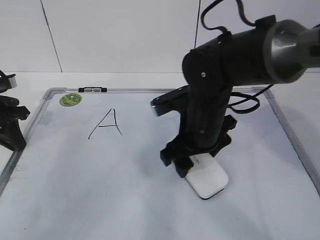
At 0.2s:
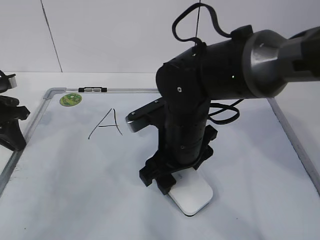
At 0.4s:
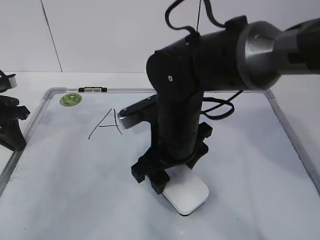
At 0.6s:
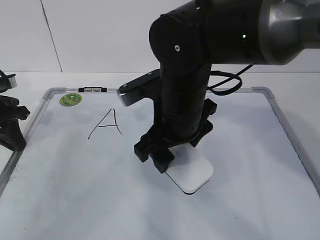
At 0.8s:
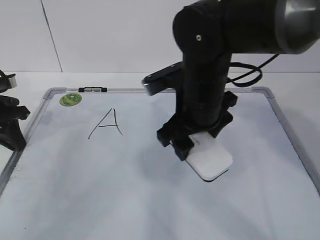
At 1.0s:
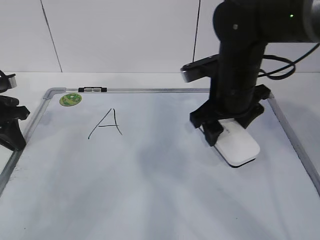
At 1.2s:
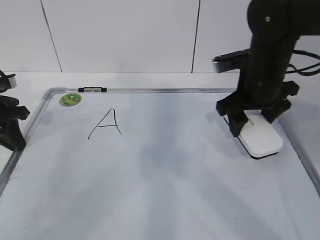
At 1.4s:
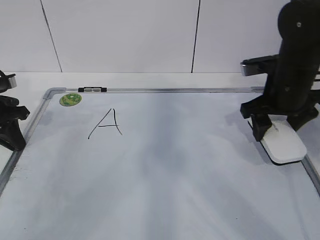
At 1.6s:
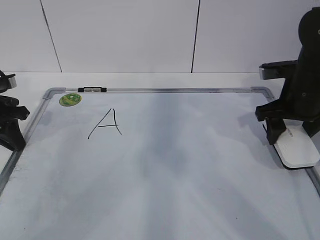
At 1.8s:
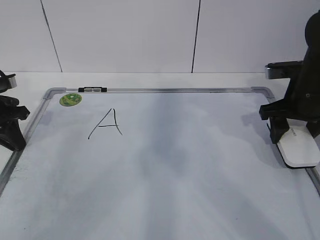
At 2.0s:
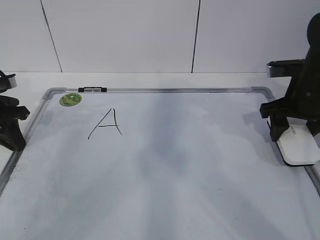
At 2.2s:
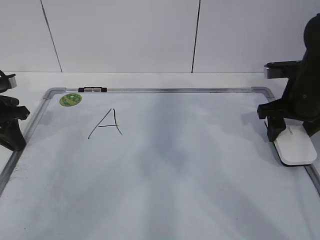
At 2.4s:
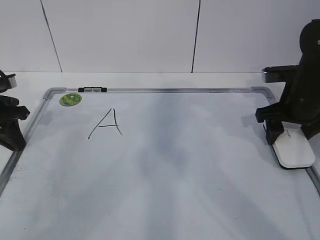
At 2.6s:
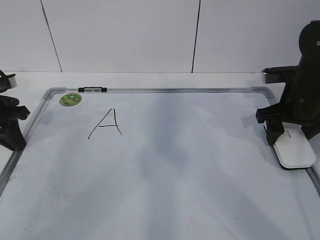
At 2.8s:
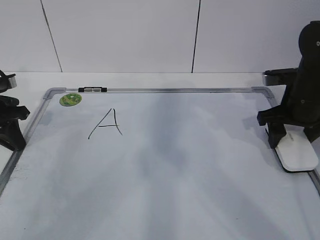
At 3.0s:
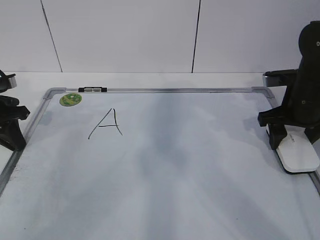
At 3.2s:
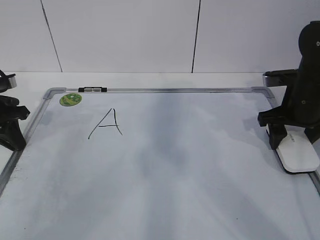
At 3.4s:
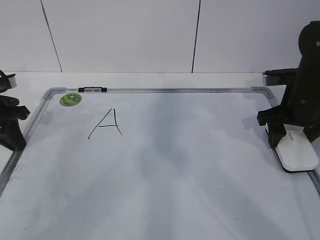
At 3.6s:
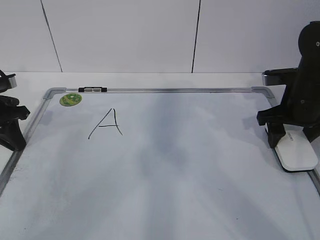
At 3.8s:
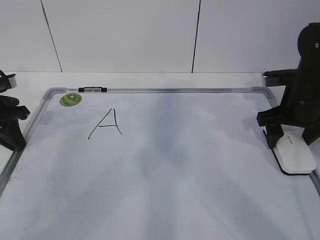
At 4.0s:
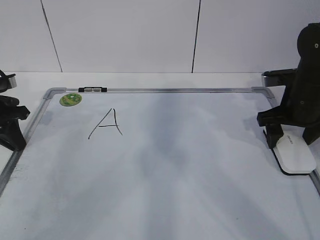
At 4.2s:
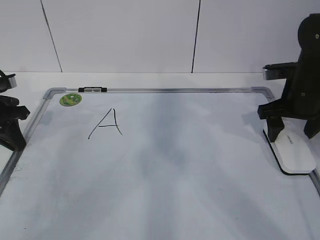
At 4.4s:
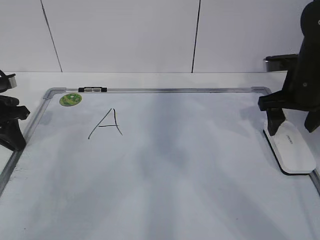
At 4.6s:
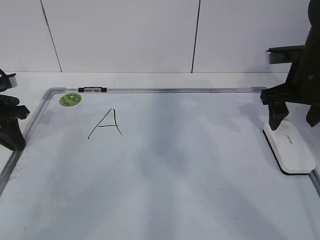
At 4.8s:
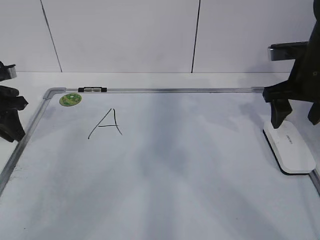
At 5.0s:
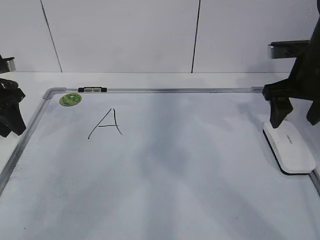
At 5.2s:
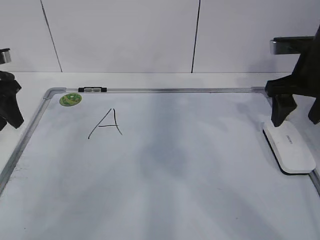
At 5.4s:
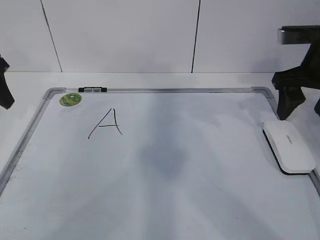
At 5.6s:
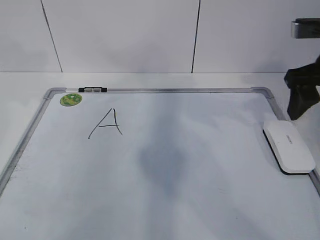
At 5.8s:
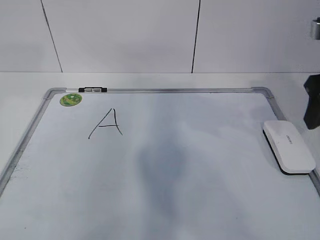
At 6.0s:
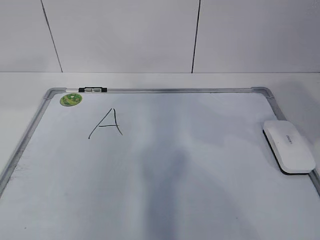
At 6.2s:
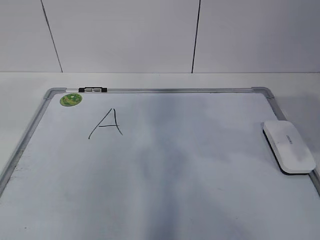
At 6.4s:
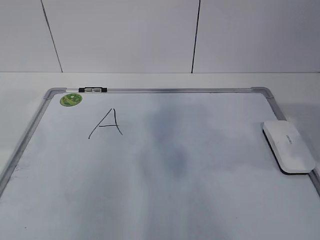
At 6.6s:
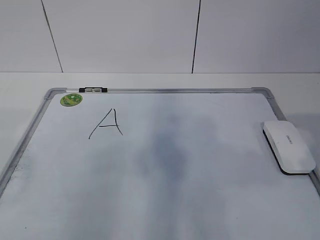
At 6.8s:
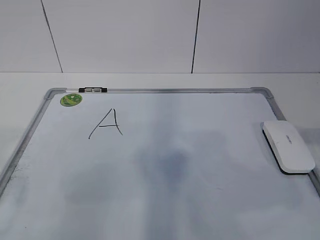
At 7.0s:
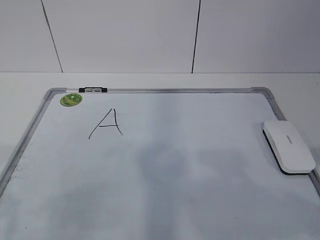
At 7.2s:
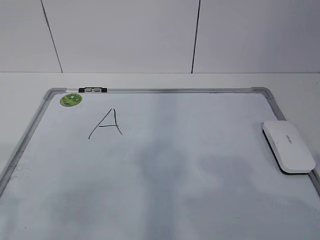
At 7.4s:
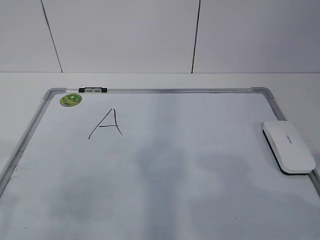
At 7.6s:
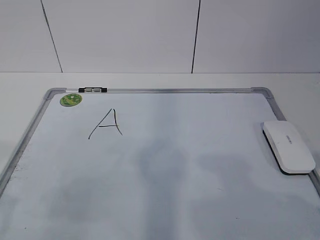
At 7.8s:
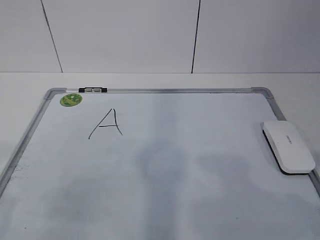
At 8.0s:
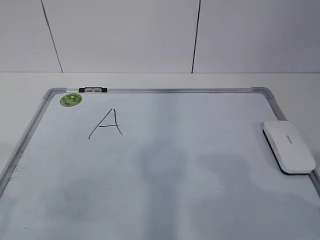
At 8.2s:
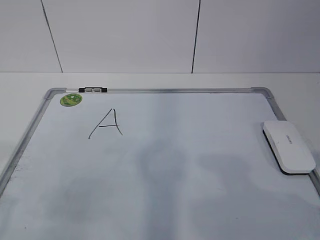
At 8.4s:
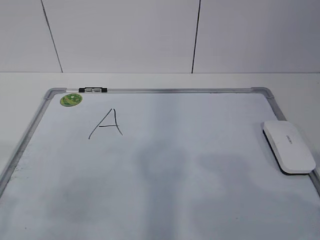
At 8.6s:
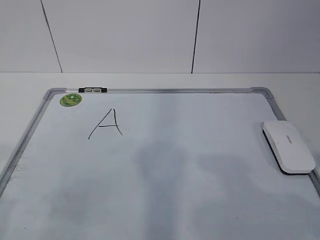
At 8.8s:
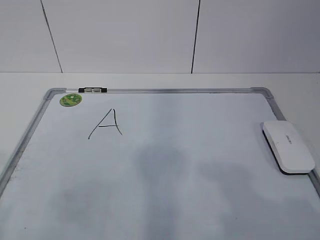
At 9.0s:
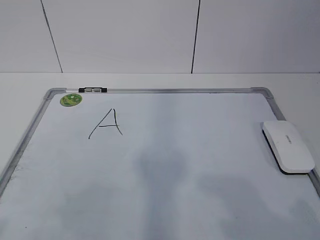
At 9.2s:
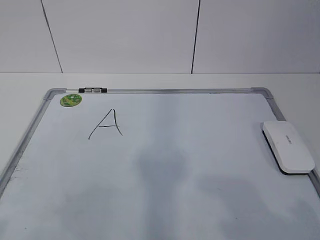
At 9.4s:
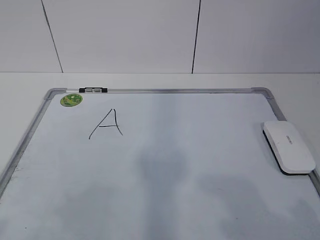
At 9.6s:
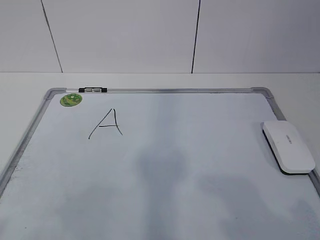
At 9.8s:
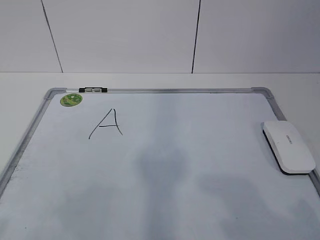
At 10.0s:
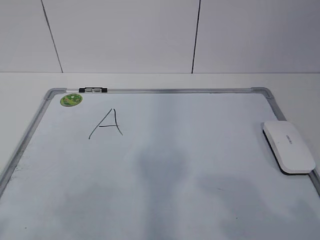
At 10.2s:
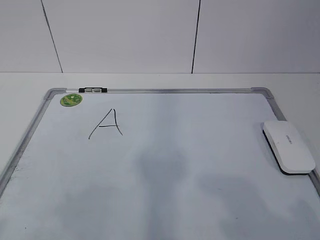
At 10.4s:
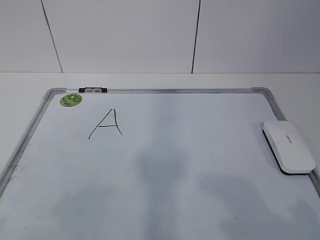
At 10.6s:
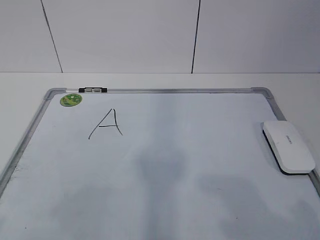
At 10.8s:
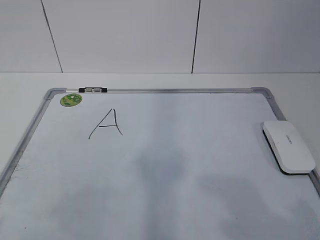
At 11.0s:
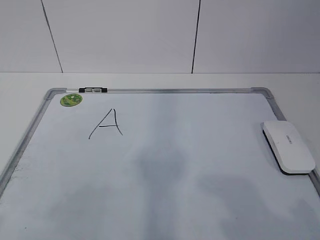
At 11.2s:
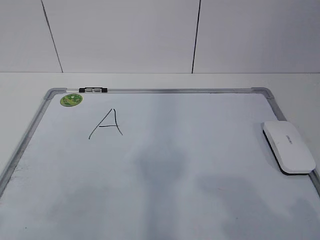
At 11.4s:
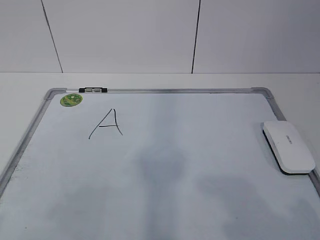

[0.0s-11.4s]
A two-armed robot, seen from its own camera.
Task of the whole recording: pick up the eraser on the blackboard and erase the letter "a".
0.0s to 1.4s: The right gripper moves to the right, about 15 cm.
1.4s to 2.8s: The right gripper moves some 5 cm.
2.8s to 4.2s: The right gripper opens its fingers.
4.2s to 5.6s: The right gripper shifts some 10 cm upward and backward, and closes. The left gripper shifts about 15 cm upward, and opens its fingers.
5.6s to 7.2s: Both grippers move backward, about 30 cm.
10.0s to 11.4s: The two grippers keep their place.

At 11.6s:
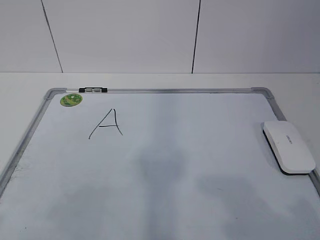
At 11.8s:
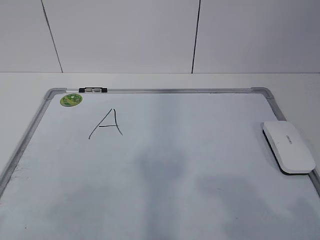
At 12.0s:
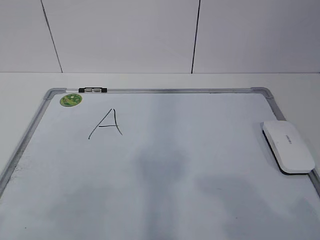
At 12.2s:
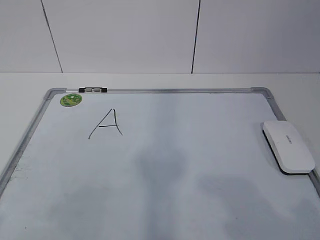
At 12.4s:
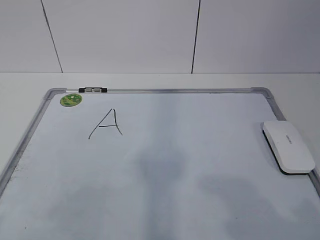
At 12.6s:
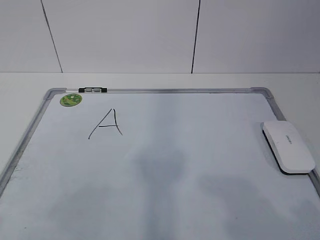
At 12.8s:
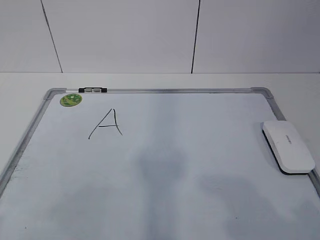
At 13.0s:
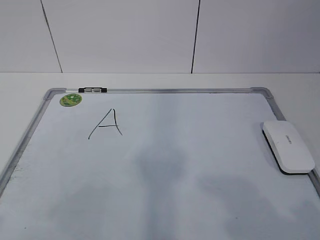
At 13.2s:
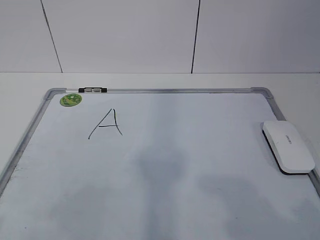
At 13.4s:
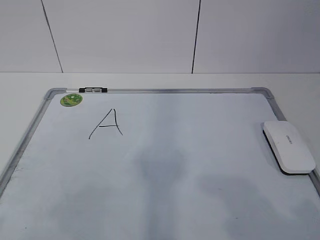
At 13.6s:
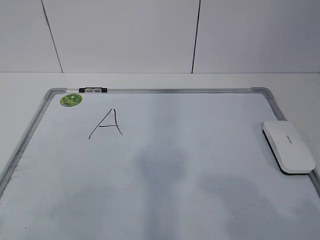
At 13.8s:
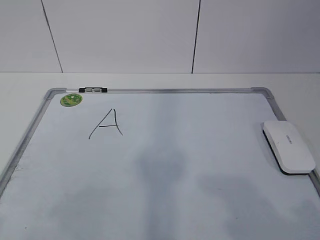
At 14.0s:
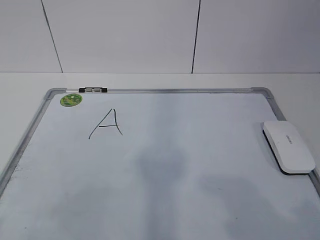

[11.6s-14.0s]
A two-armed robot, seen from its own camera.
Task of the whole recording: pick up the eraser on the blackboard and erase the letter "a".
11.6s to 14.0s: Both grippers stay about where they are.

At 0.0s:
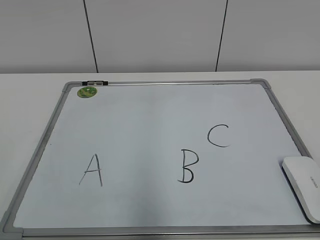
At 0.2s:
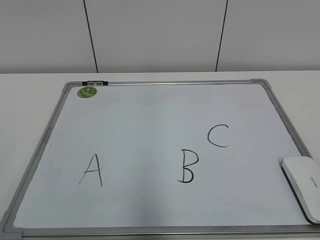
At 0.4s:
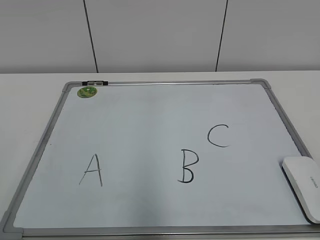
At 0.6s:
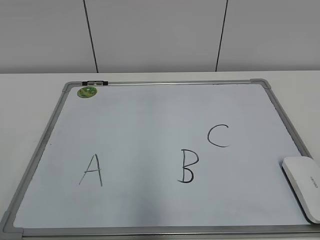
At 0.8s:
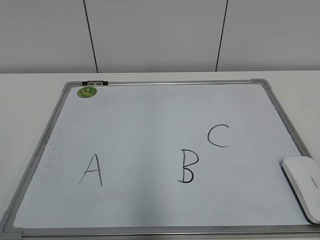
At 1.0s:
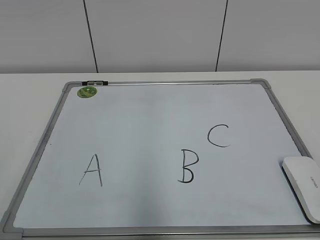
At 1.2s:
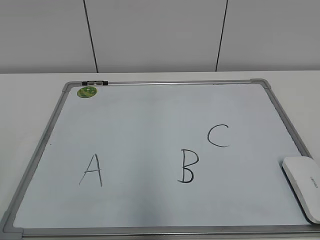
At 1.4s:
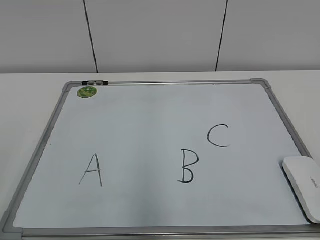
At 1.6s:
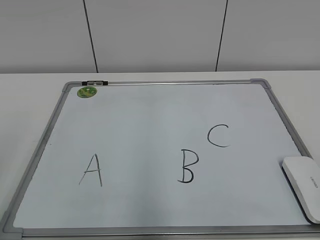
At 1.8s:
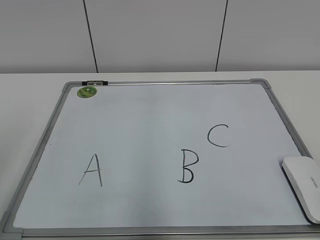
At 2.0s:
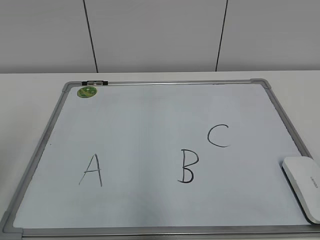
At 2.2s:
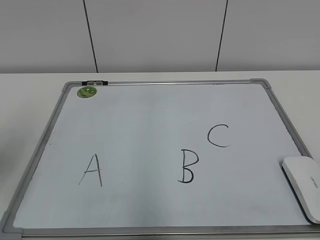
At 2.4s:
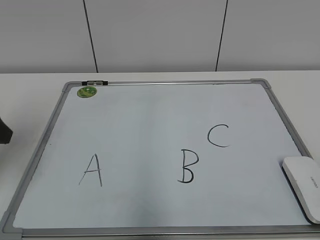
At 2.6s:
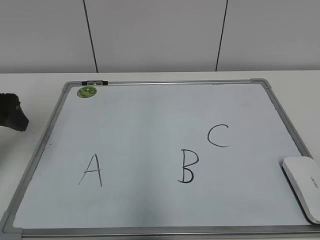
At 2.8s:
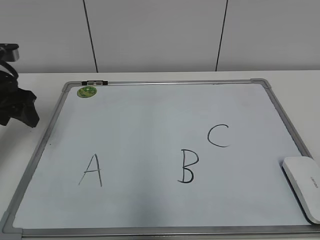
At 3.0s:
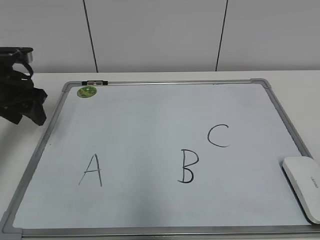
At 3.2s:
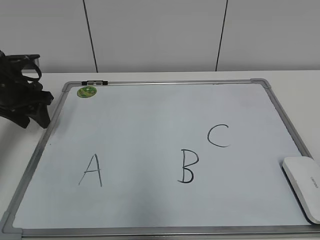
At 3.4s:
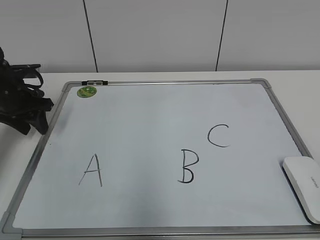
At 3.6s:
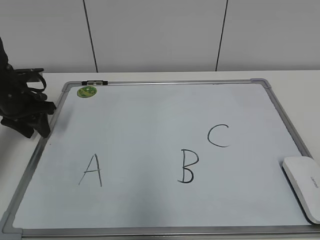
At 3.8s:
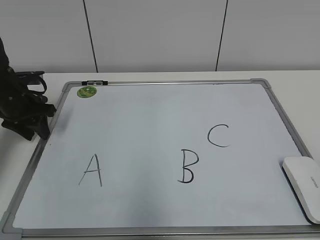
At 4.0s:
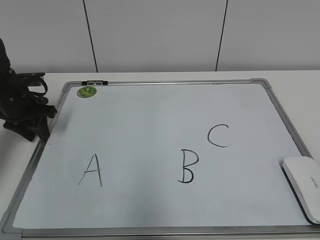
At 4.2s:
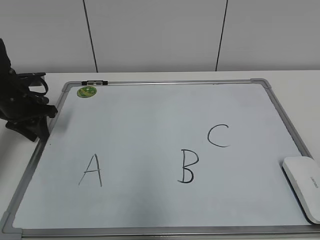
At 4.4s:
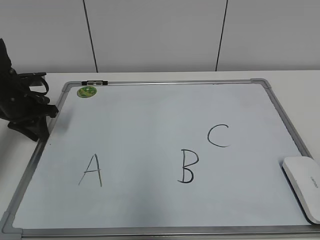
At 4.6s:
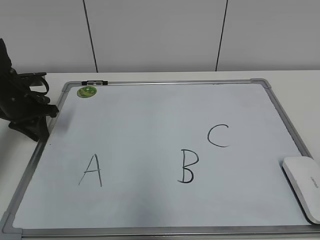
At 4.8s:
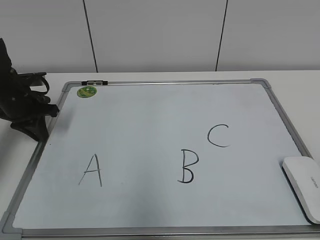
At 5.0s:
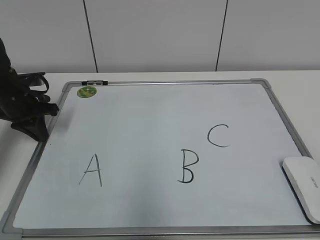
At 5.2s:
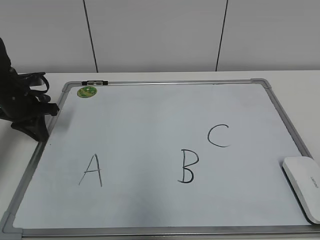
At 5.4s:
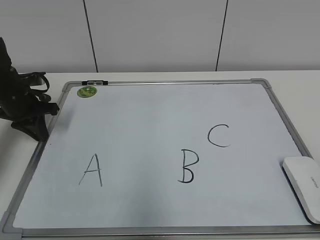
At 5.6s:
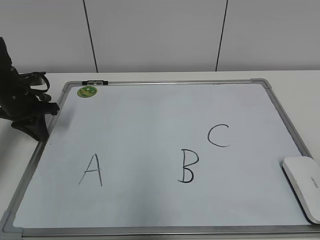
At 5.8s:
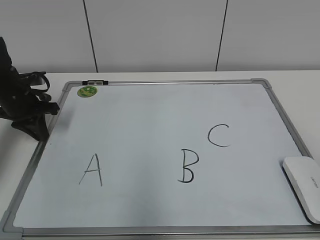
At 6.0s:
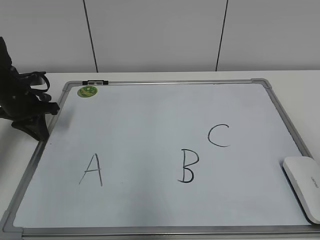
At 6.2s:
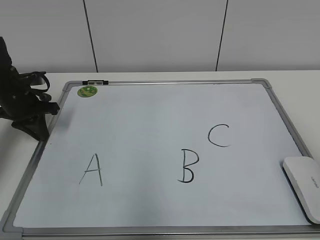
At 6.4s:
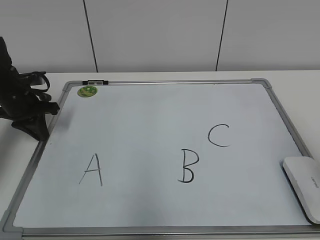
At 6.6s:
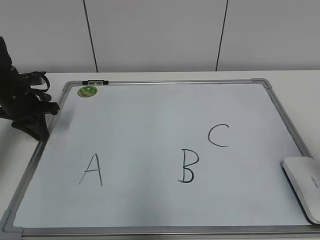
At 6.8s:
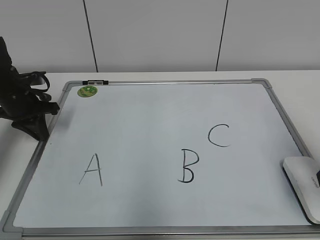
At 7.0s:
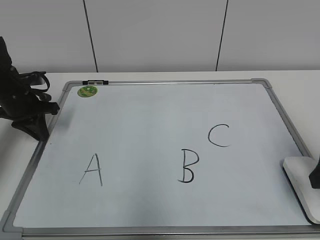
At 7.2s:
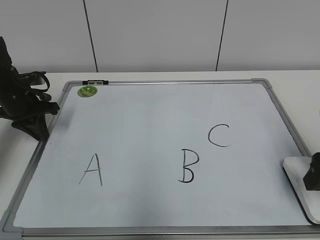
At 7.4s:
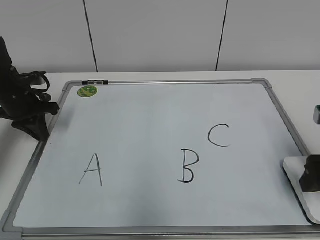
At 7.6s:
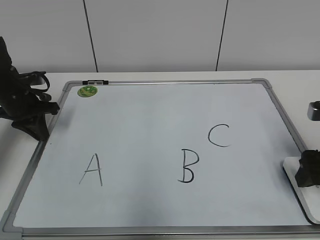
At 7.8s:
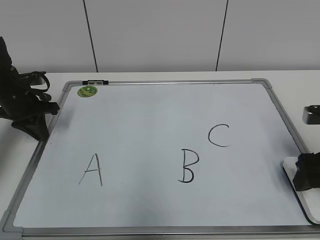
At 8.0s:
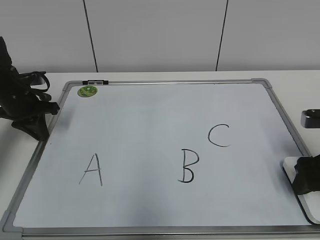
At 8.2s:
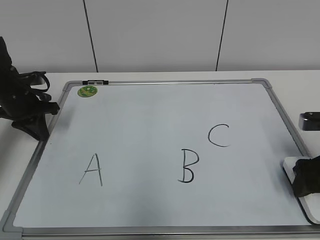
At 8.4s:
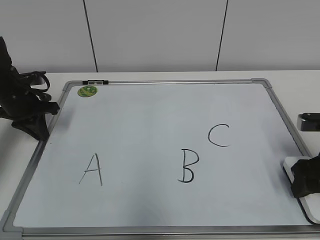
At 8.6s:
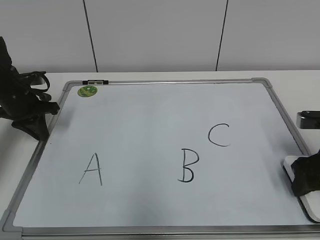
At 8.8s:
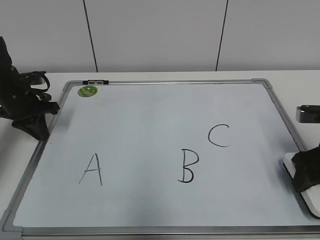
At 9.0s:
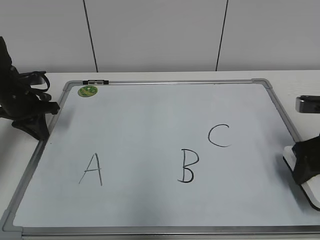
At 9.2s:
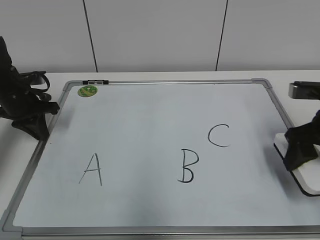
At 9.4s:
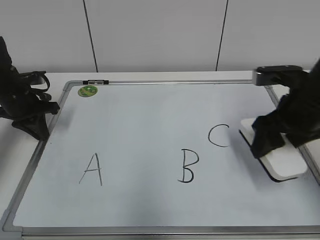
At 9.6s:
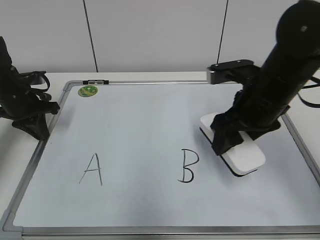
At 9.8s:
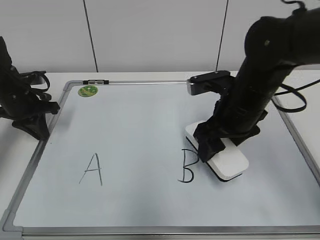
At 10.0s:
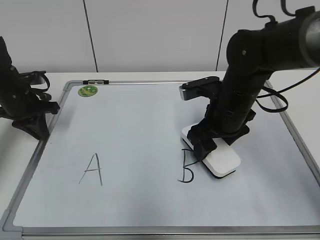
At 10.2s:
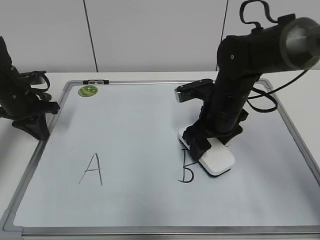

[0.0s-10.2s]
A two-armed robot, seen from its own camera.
Task of the whole recording: pick up the eraser on the blackboard and erase the letter "B".
Step, 0.0s to 4.8s: Hold the drawing board steady with your left hand.
1.4s to 3.0s: The left gripper moves forward, approximately 35 cm.
3.0s to 4.4s: The left gripper goes approximately 5 cm downward, and closes.
5.8s to 7.2s: The right gripper goes approximately 25 cm forward and downward, and opens up.
7.2s to 8.8s: The right gripper moves some 5 cm, and closes its fingers.
8.8s to 10.2s: The right gripper heads to the left and forward, covering about 20 cm.
